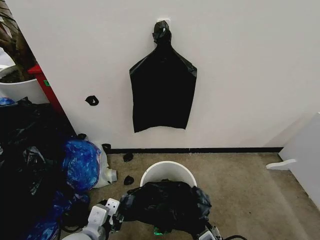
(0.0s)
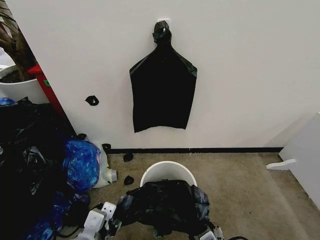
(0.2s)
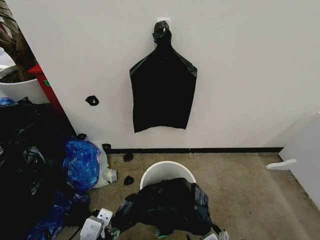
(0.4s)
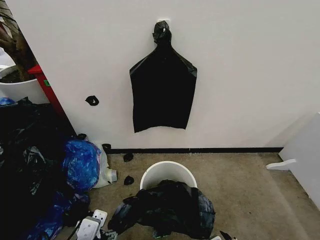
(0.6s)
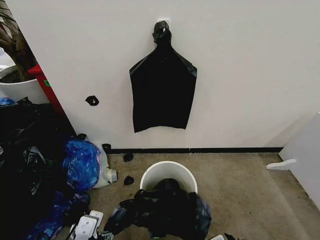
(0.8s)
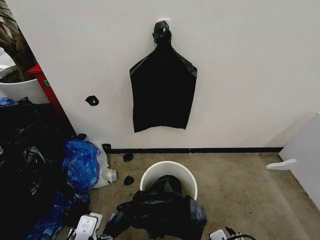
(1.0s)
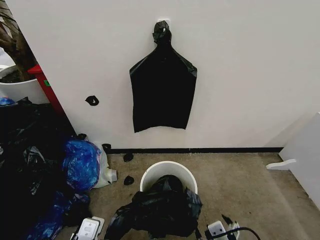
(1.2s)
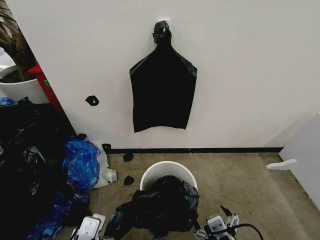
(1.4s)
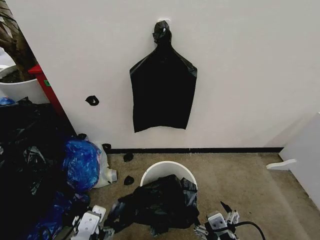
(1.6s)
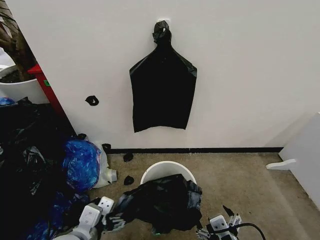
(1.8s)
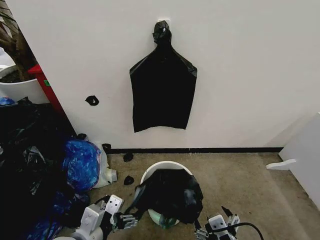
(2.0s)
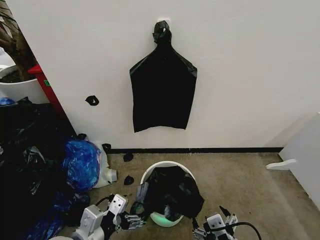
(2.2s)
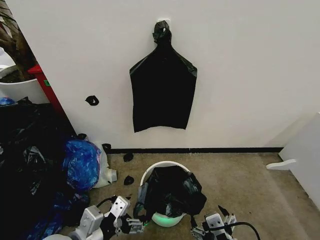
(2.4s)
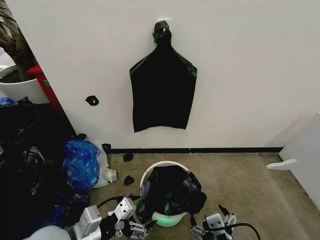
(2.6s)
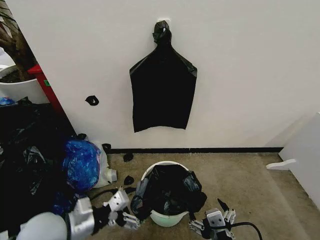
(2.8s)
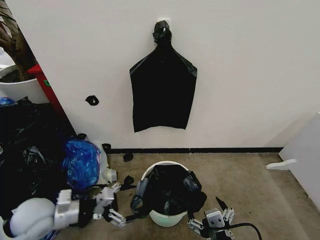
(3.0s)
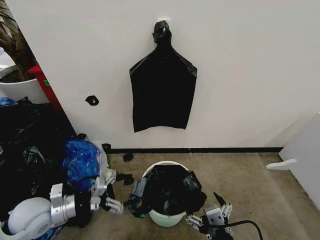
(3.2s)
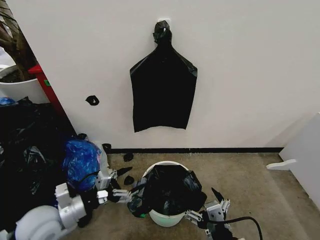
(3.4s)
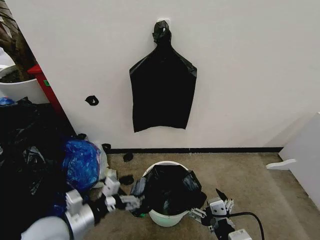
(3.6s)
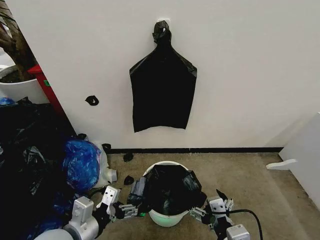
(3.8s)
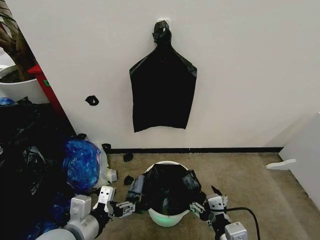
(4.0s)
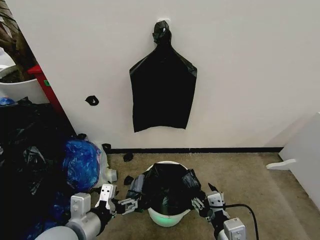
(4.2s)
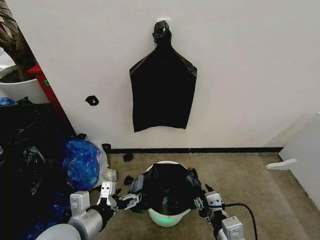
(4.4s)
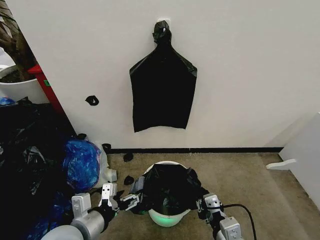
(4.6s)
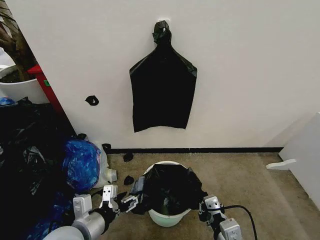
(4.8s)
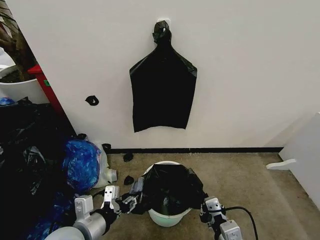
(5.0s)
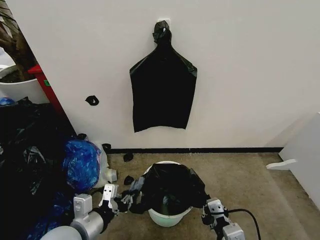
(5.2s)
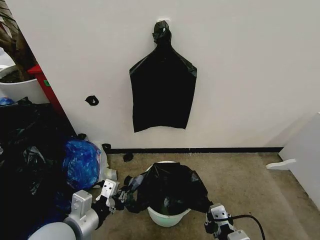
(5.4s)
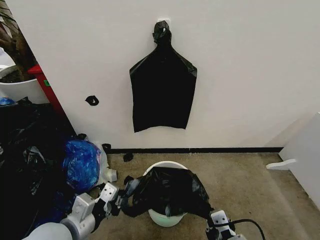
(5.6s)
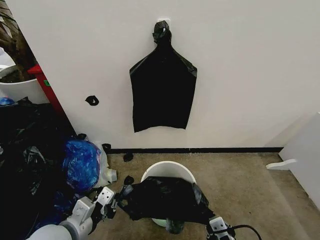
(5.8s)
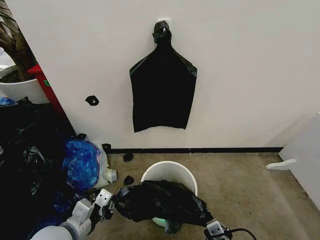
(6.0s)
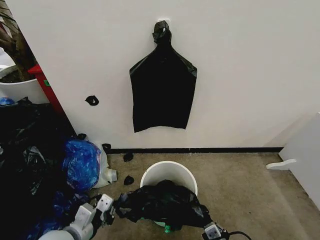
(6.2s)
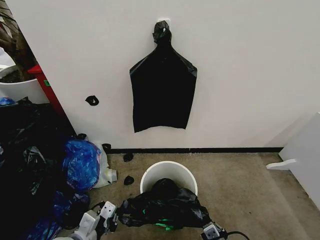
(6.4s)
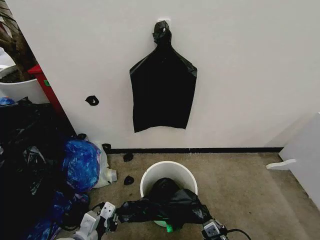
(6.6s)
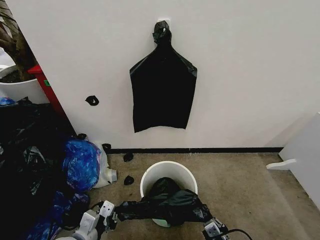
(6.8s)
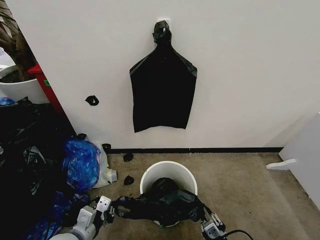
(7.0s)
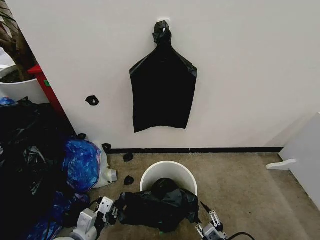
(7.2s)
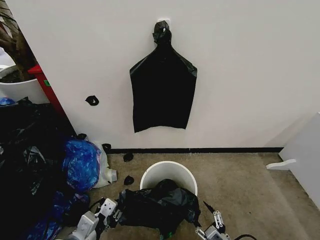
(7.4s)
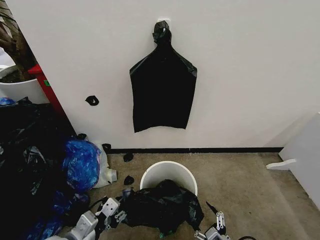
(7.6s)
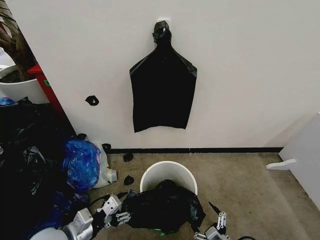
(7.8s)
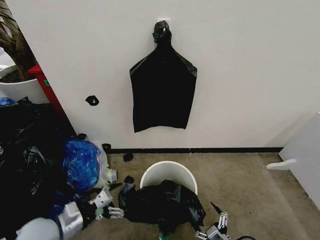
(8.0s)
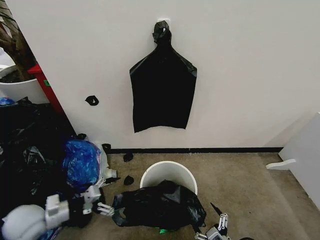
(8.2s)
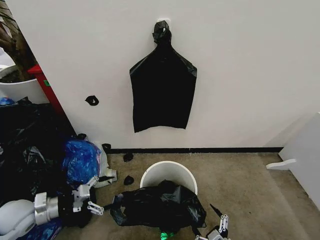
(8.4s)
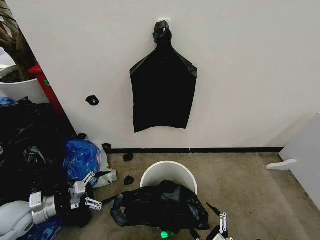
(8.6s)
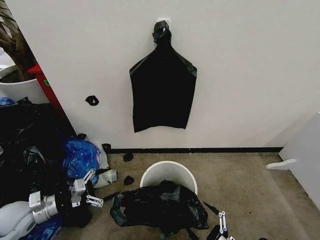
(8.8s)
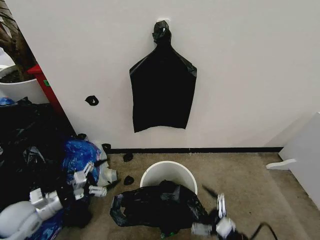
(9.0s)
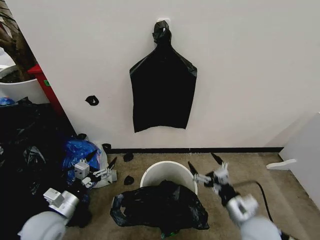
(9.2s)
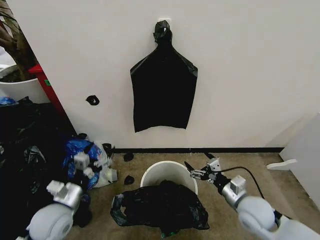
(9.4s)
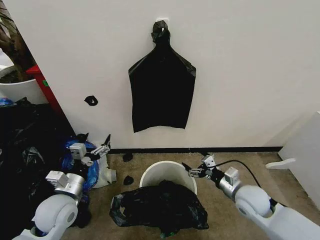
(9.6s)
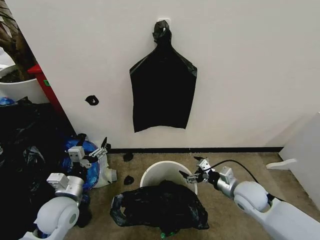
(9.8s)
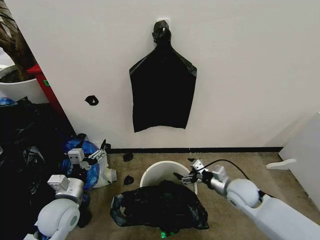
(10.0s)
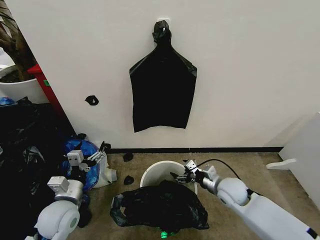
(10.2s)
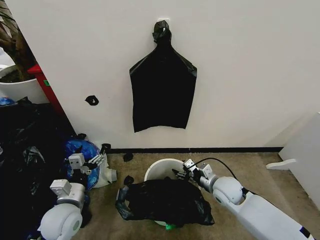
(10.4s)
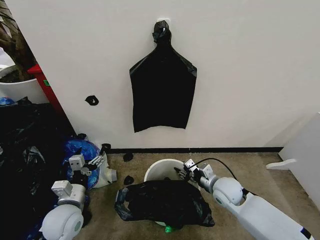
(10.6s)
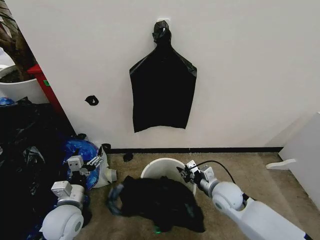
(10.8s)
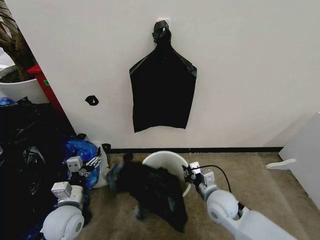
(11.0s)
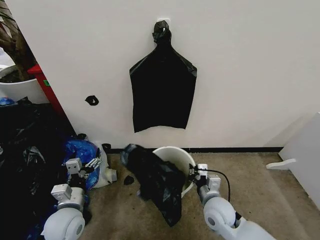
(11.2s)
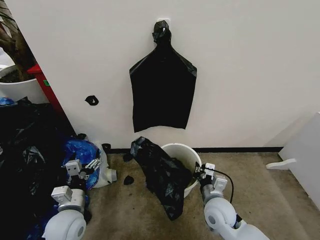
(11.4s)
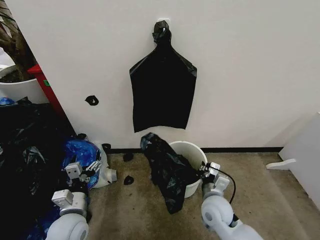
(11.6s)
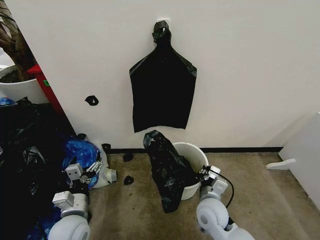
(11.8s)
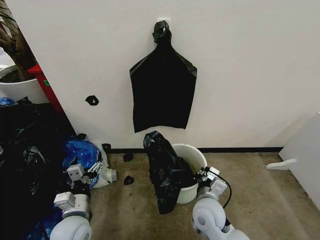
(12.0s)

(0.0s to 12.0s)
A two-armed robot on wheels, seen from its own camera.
Task of the whole recording: Place the garbage bag over the trash bin.
0.0s - 1.6s: The right gripper opens its fingers; the left gripper opens.
1.6s - 3.0s: The left gripper travels to the left and forward by about 15 cm.
3.0s - 4.4s: The right gripper moves forward, some 5 cm, and closes up. Meanwhile the left gripper shifts approximately 15 cm to the right, backward and upward.
4.4s - 6.0s: The left gripper goes roughly 5 cm downward, and closes up. The right gripper shifts by approximately 5 cm, and closes its fingers.
6.0s - 7.6s: The left gripper opens, while the right gripper travels downward and to the right by some 10 cm, and opens up.
7.6s - 9.0s: The right gripper shifts by about 5 cm, while the left gripper is displaced to the left and forward by roughly 20 cm, and opens its fingers.
9.0s - 10.4s: The left gripper moves to the right, about 10 cm, while the right gripper is displaced forward by approximately 25 cm.
10.4s - 12.0s: The right gripper shifts some 15 cm to the left and backward, and closes its fingers.

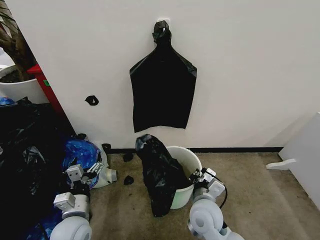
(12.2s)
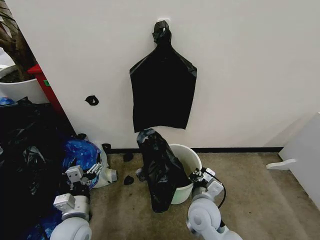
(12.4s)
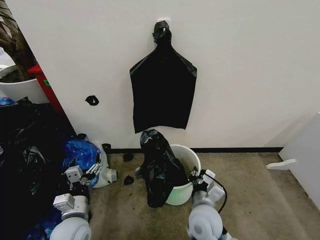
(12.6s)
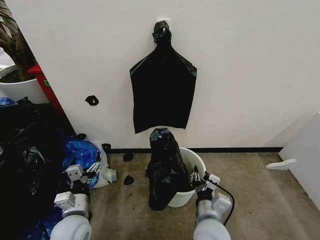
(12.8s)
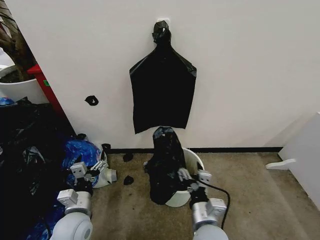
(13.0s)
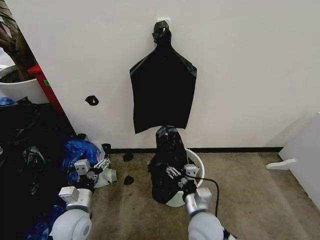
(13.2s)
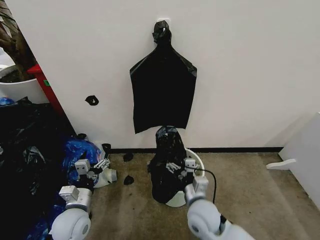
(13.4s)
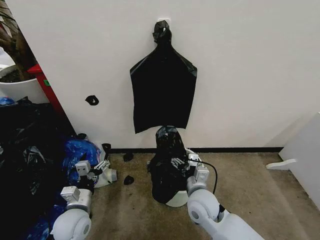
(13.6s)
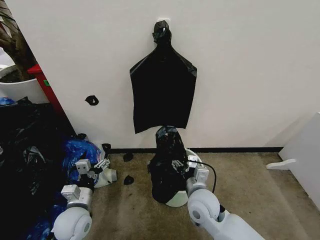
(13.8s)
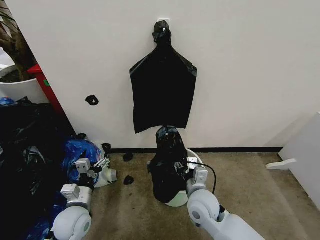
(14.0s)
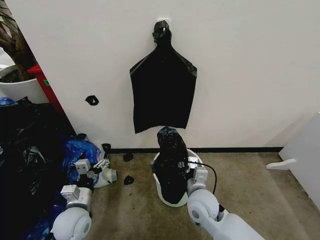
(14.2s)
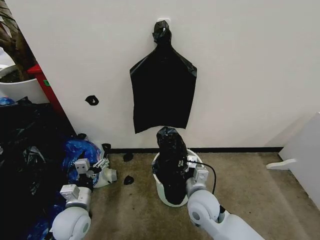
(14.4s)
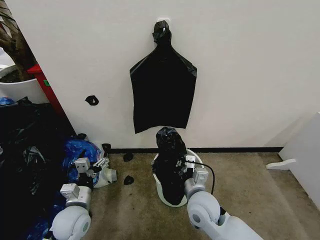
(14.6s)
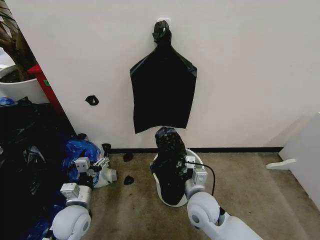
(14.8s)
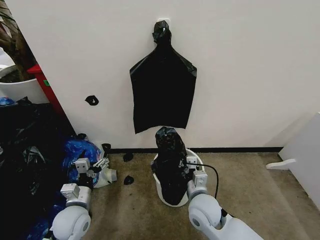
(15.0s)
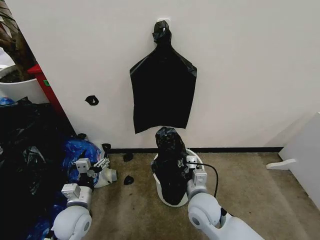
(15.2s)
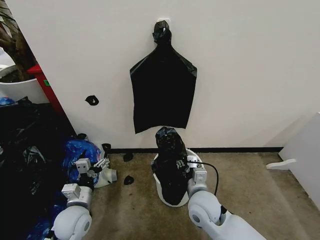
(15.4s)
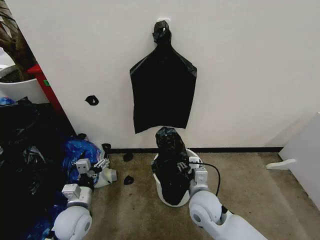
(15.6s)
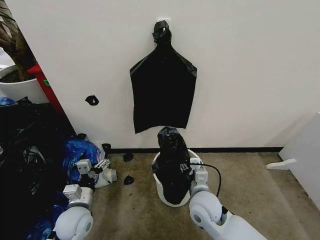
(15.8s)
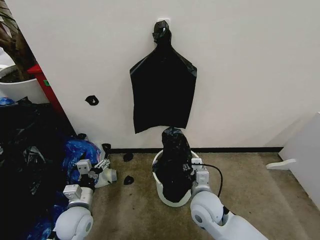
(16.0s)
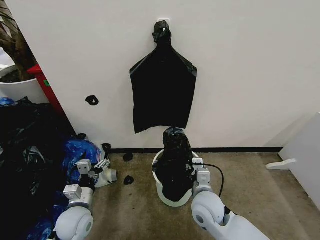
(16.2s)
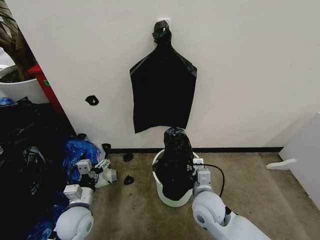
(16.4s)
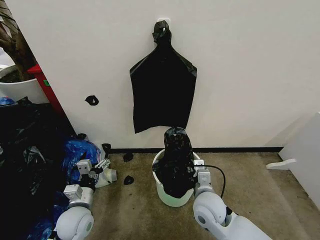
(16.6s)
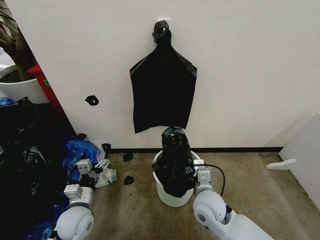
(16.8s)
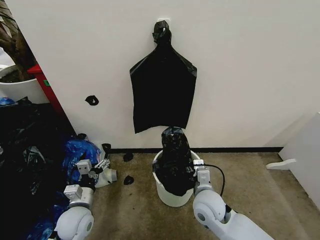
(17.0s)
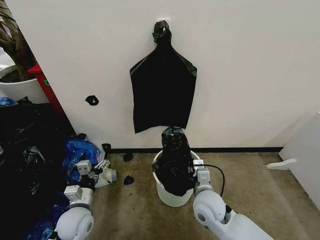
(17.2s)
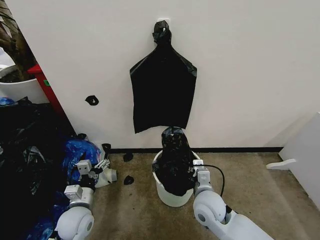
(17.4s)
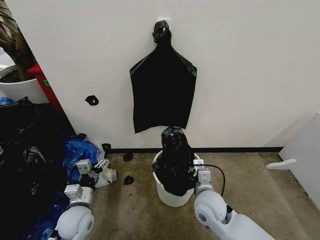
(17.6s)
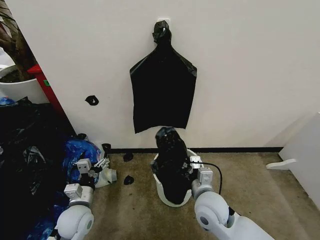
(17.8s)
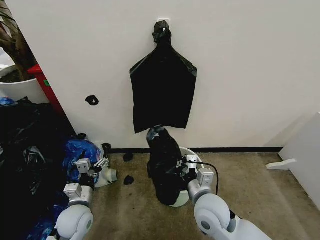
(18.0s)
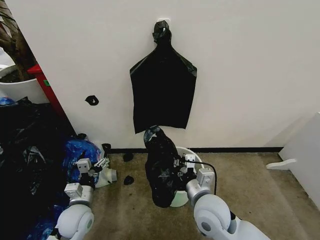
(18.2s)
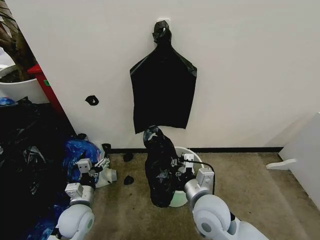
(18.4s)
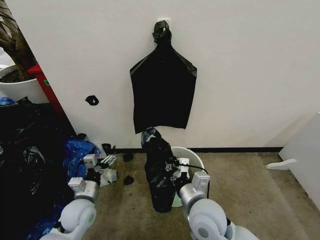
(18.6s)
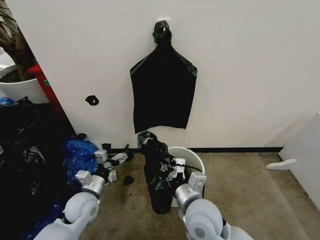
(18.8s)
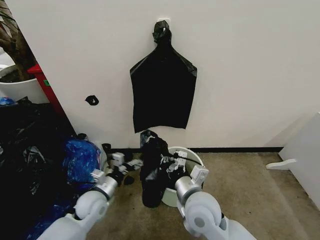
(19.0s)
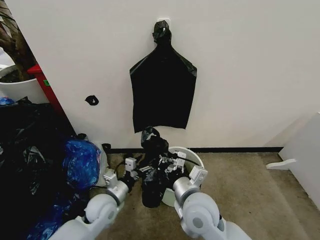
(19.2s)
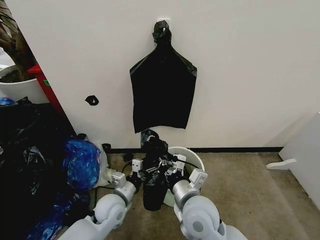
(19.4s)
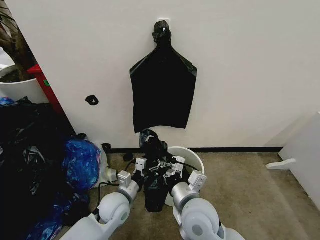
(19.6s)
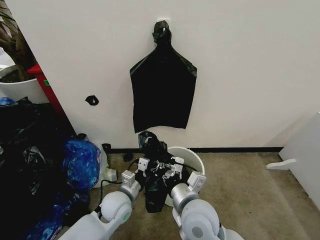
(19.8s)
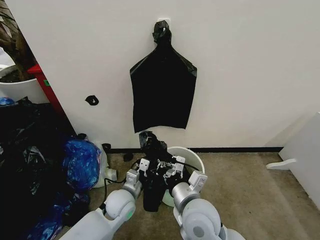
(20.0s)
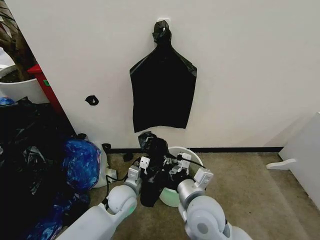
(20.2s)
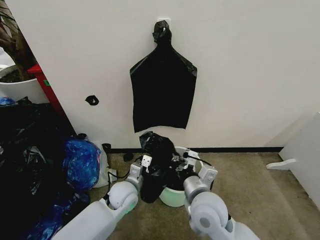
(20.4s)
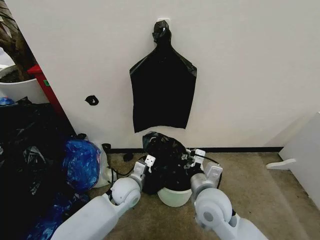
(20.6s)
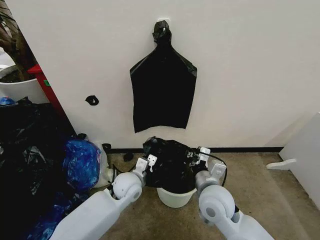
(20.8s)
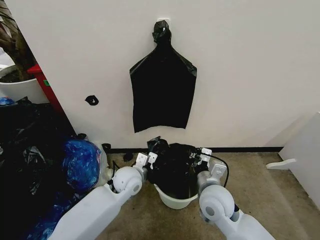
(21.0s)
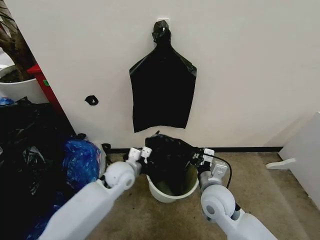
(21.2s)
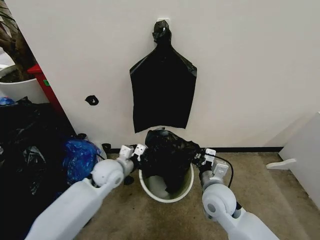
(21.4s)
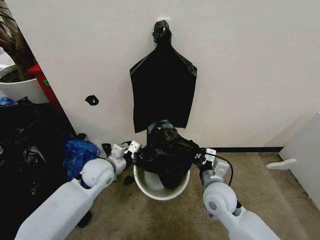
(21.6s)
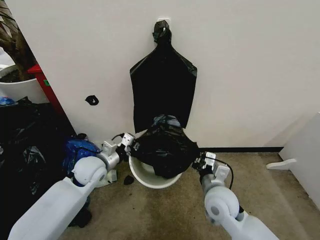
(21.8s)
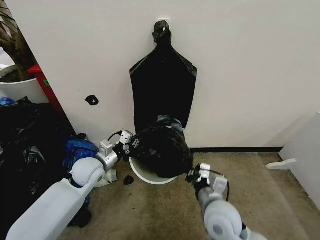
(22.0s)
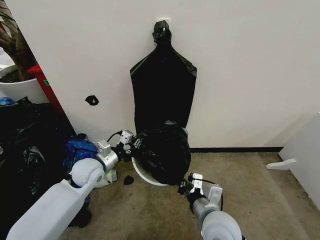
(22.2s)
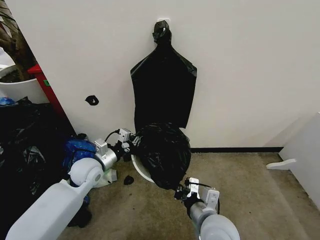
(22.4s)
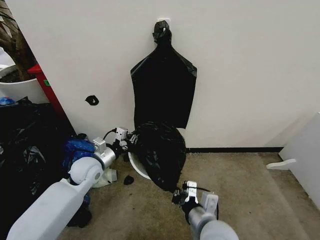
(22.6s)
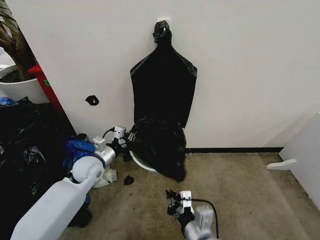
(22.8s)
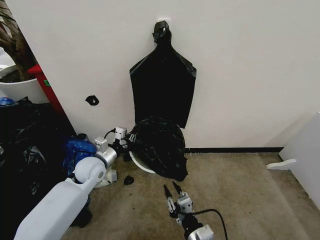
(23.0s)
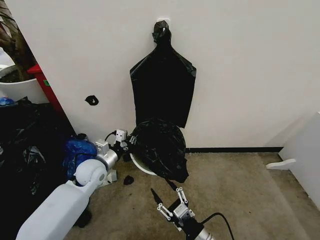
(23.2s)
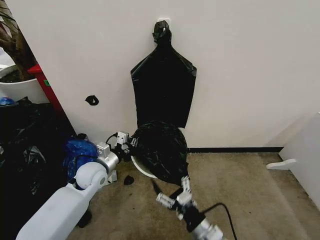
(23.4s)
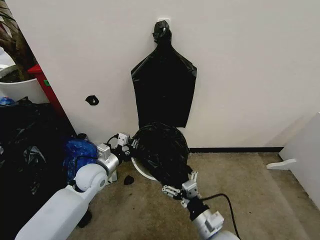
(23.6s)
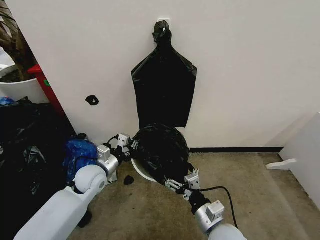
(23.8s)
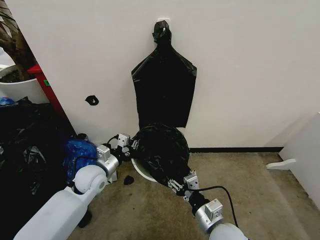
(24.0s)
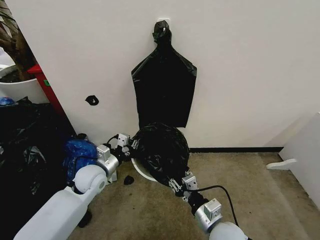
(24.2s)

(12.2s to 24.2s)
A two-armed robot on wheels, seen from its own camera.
Task of the whole recording: Place the garbage bag over the trash bin.
12.2s - 13.8s: The right gripper travels backward and back again, roughly 5 cm each way, and opens its fingers.
13.8s - 15.2s: The right gripper closes up.
15.2s - 16.6s: The grippers make only small movements.
16.6s - 18.2s: The right gripper moves roughly 5 cm, and closes.
18.2s - 19.8s: The left gripper moves to the right, approximately 10 cm.
19.8s - 21.2s: The left gripper moves forward and upward, about 10 cm, and closes its fingers; the right gripper goes roughly 10 cm to the right and forward.
21.2s - 22.6s: The left gripper is displaced to the left by approximately 10 cm. The right gripper heads backward, covering about 10 cm.
22.6s - 24.2s: The right gripper opens.
